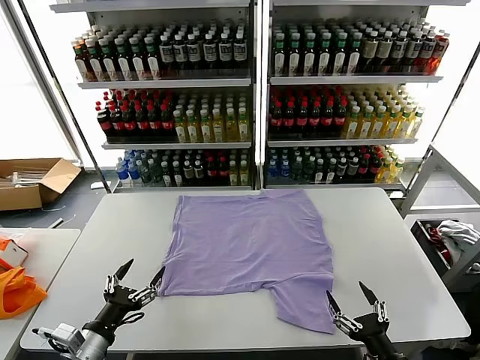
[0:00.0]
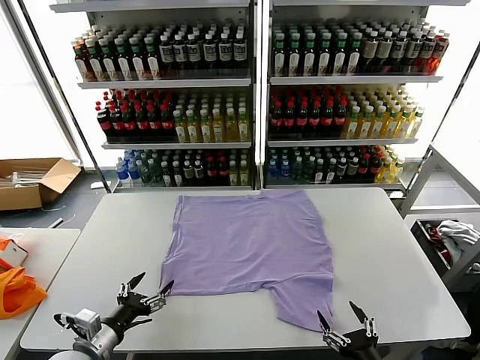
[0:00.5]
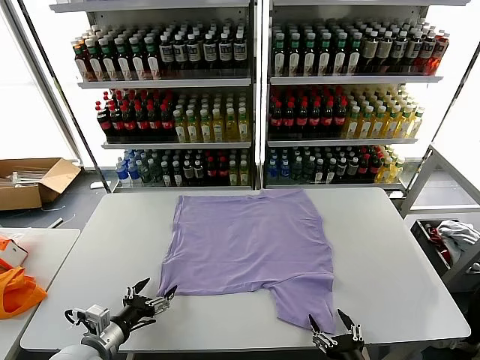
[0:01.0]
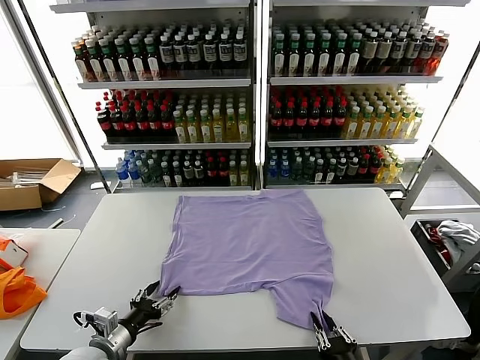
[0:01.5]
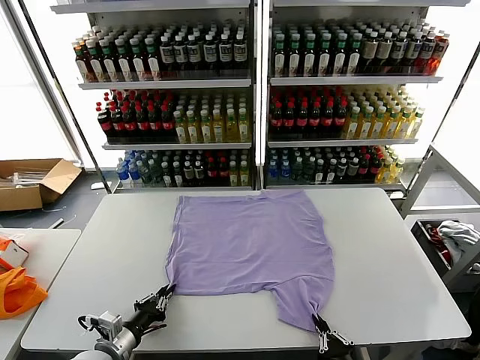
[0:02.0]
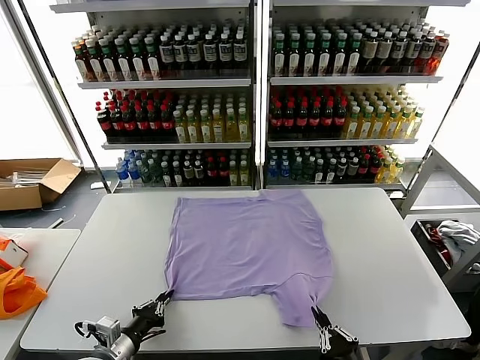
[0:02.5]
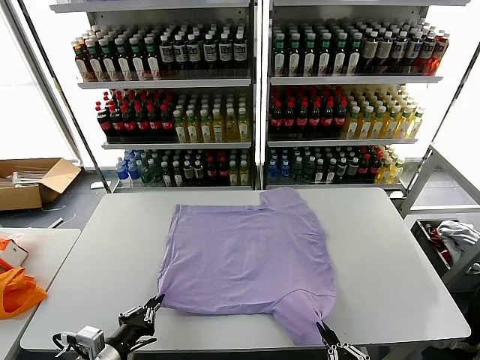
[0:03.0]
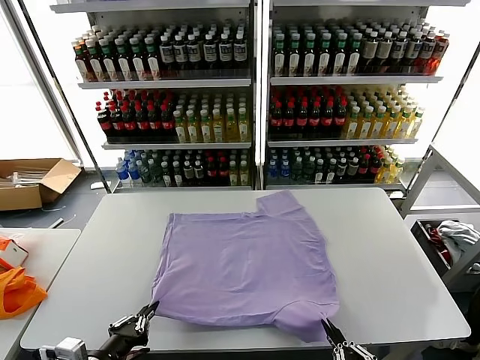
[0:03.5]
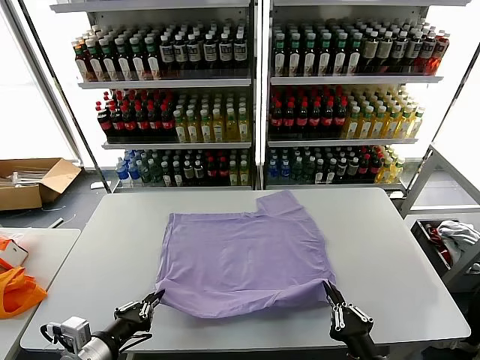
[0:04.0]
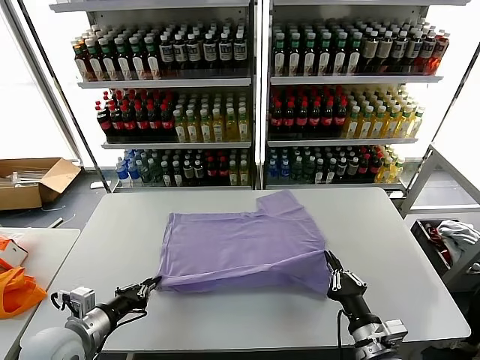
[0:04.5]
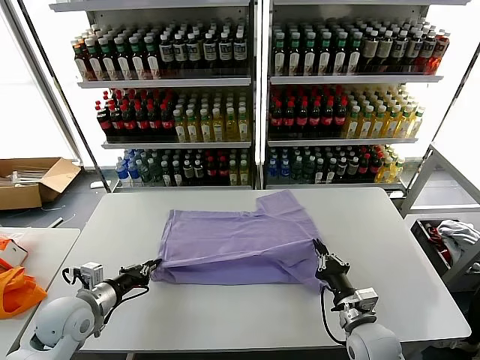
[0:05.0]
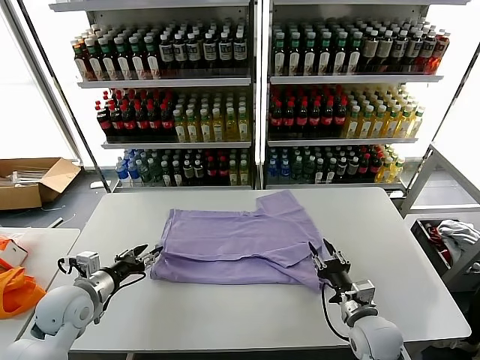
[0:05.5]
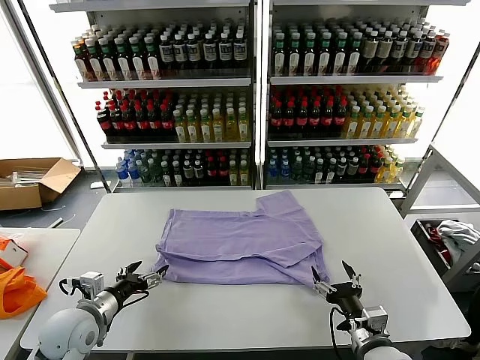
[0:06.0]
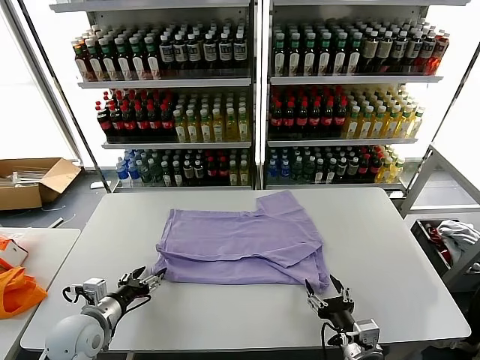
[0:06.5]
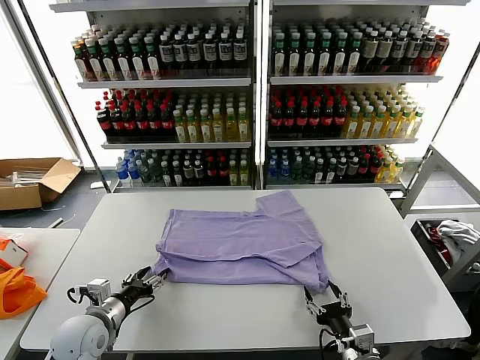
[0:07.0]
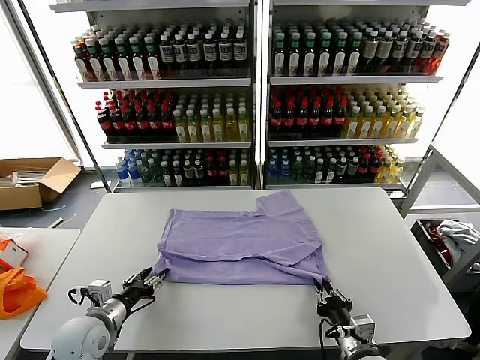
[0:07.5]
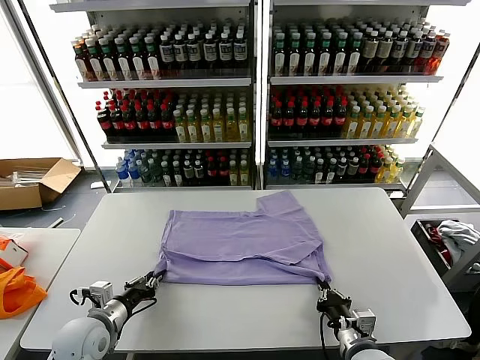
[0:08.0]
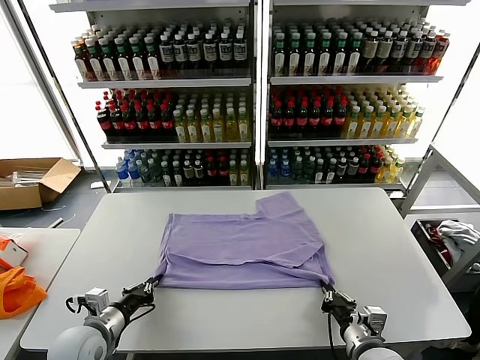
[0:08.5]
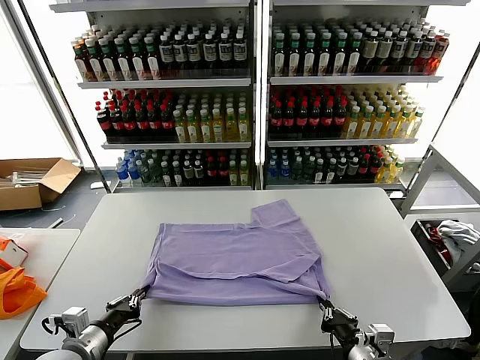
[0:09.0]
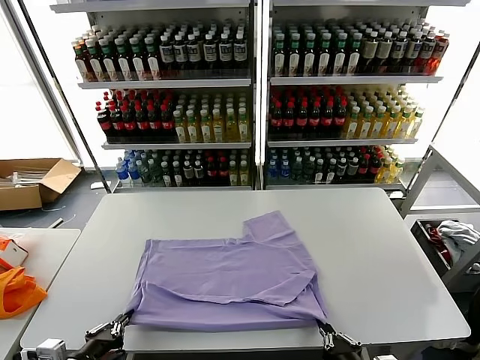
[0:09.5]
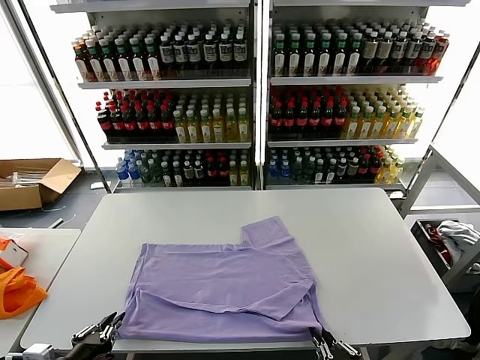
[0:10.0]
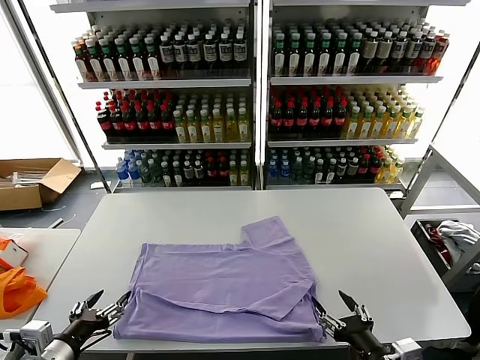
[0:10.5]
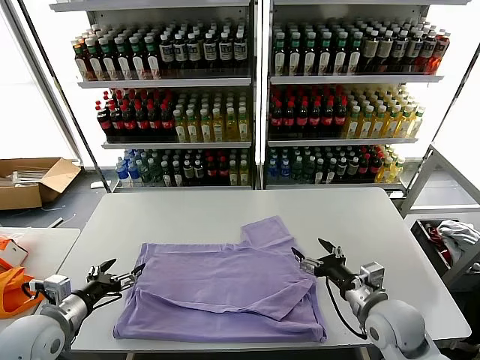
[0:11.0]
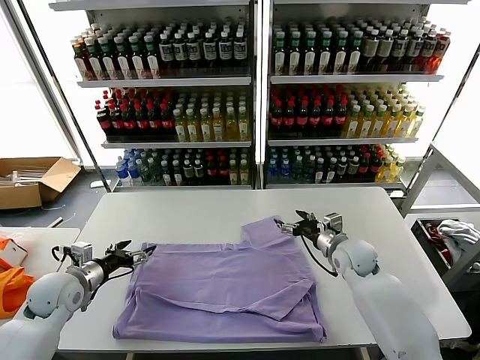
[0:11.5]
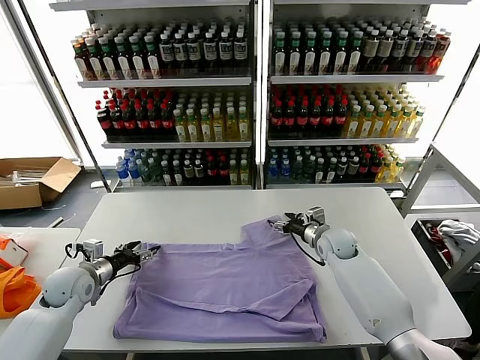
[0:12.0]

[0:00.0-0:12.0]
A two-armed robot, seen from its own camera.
Task of the whole recording: fold and organize the clothes.
Step, 0.0 to 2.0 s: use both grippers simultaneously to clamp the lower edge of the clothing fabric.
Step, 2.5 to 5.0 s: use both grippers to drag the lower edge of the fabric forward and fold it over the upper edge.
Step, 5.5 to 10.0 s: Drag the clothes downward with both gripper.
2.0 to 4.0 s: The right gripper goes about 5 cm upward, and goes backward and returns, approximately 5 cm each way; the left gripper moves upward, about 10 cm.
4.0 to 6.0 s: The two grippers go about 10 cm forward. The right gripper opens, while the left gripper opens its fingers.
6.0 to 8.0 s: The right gripper closes up. The left gripper closes its fingers.
8.0 to 10.0 s: The right gripper shifts roughly 15 cm backward and upward, while the left gripper shifts roughly 15 cm backward.
10.0 to 12.0 s: The left gripper goes some 25 cm forward, and opens up; the right gripper shifts about 40 cm forward, and opens up.

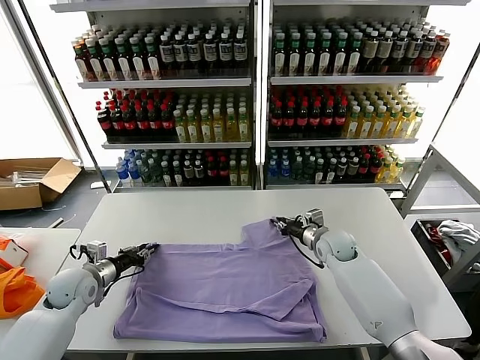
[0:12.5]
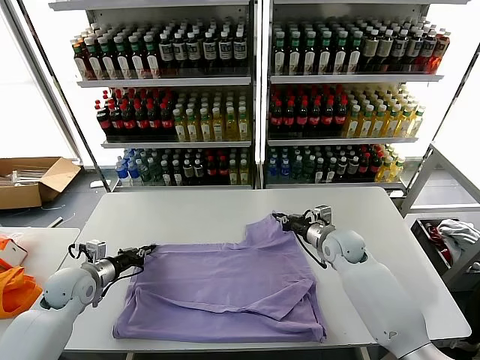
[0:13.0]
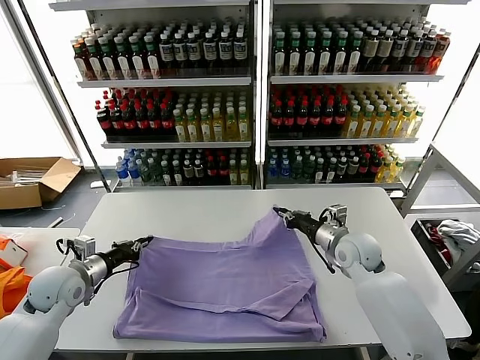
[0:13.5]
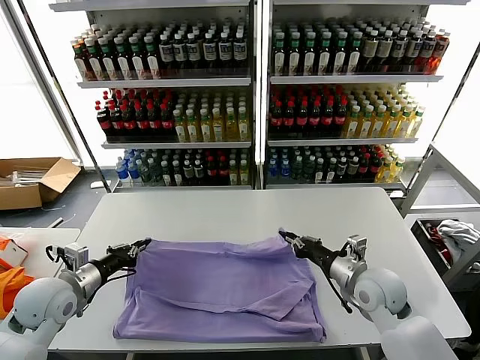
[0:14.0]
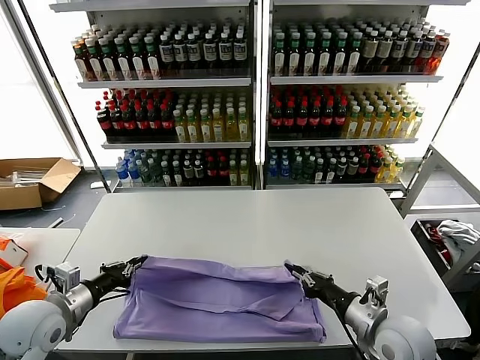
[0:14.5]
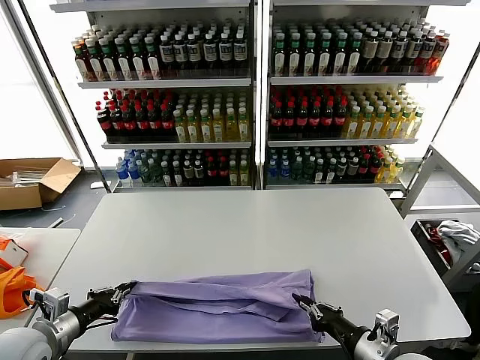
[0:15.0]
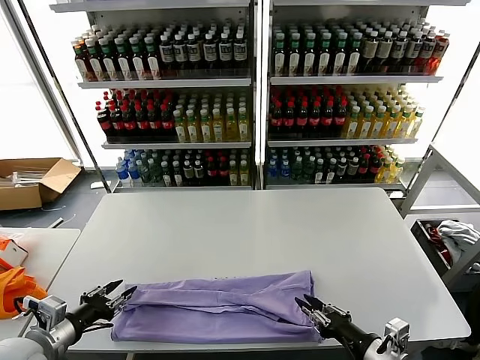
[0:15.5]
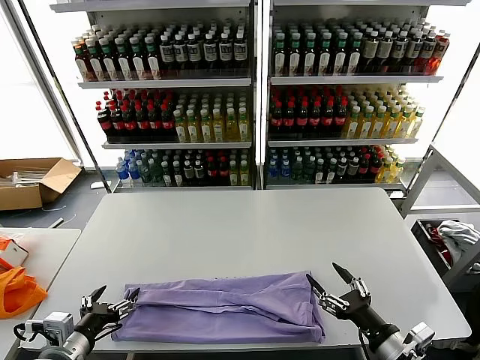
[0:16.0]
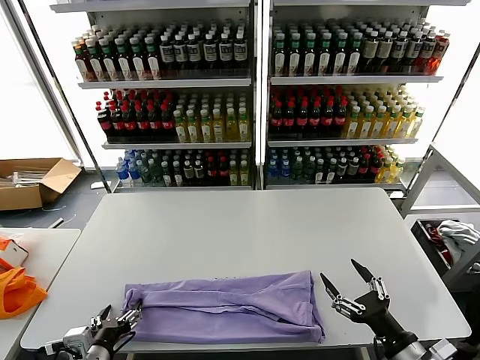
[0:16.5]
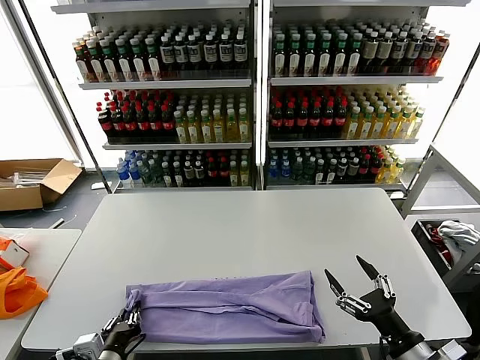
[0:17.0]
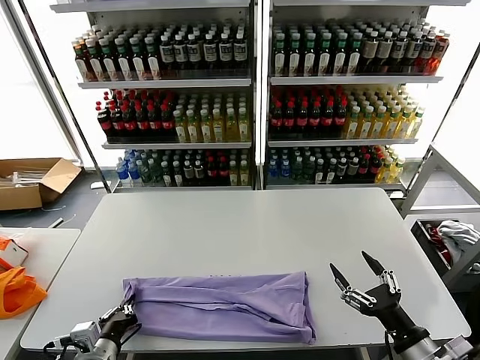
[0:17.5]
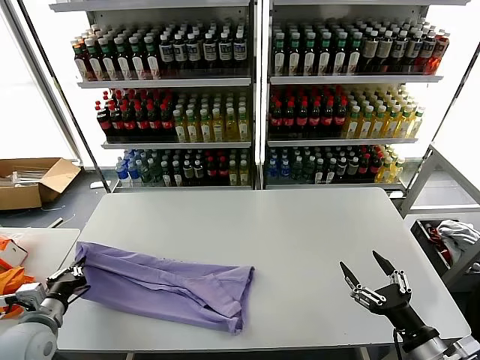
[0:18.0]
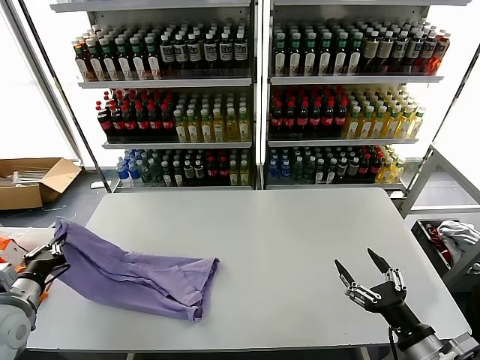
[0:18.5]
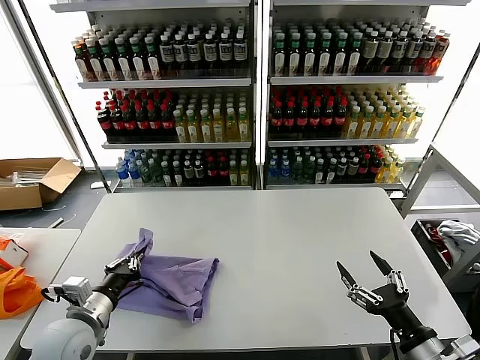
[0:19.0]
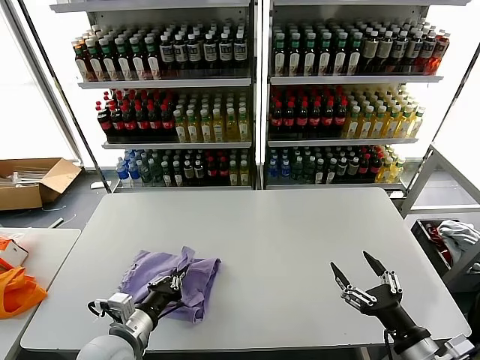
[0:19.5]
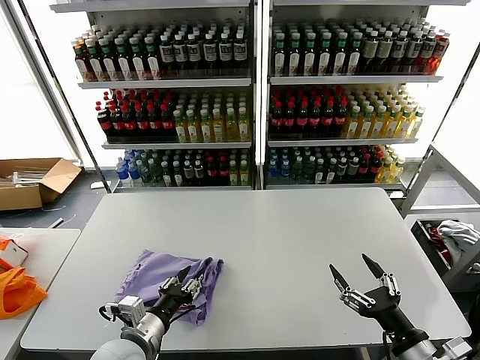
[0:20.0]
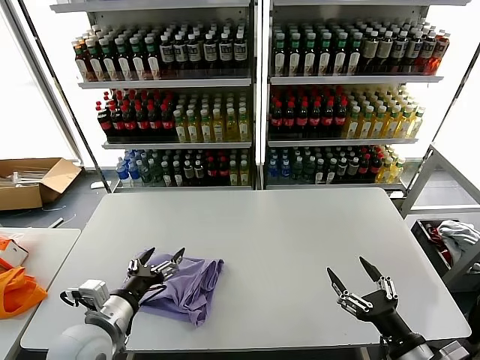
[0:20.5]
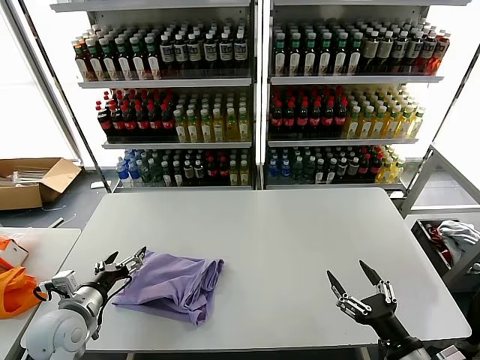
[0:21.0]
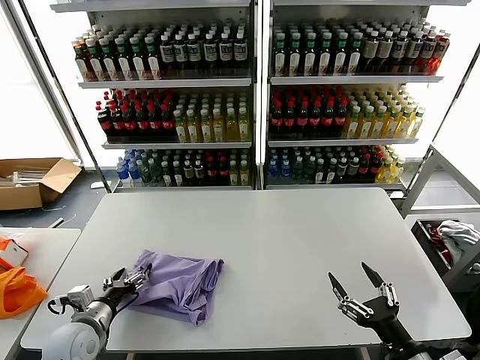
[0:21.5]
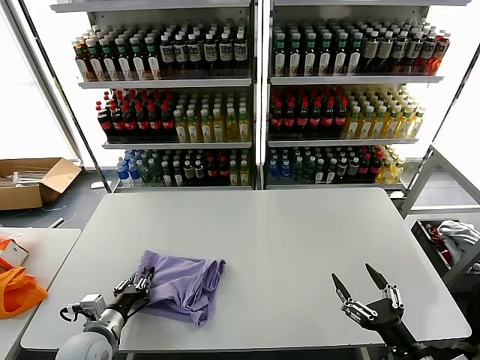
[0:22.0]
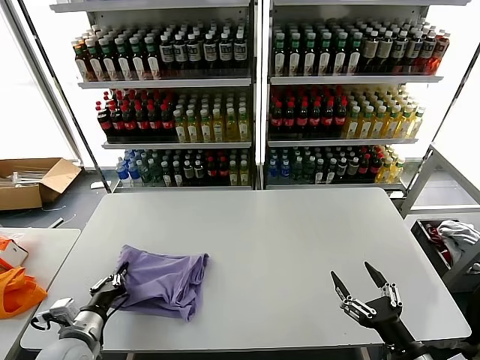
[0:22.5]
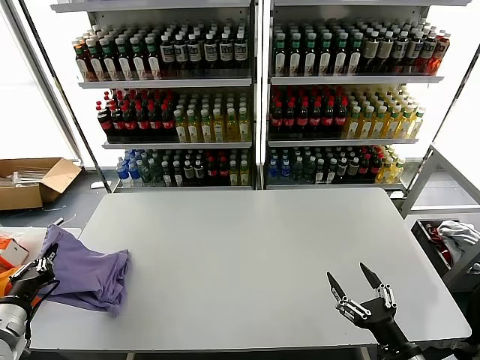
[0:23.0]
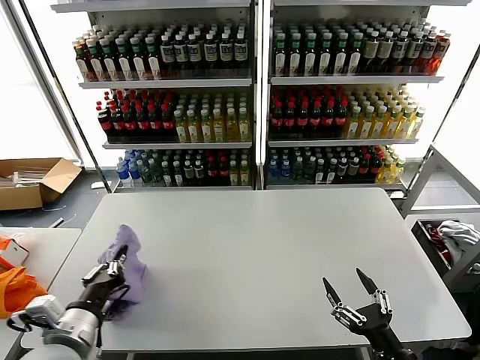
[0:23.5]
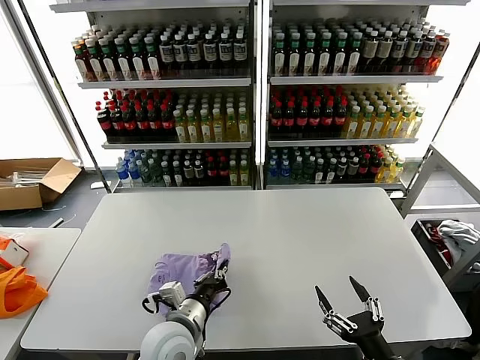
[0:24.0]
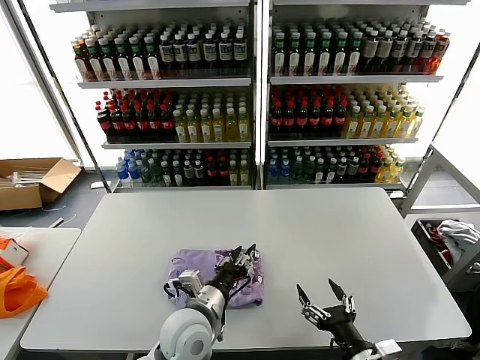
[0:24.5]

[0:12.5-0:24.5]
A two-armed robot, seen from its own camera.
Task of the whole recording: fold and organize the clothes.
Step, 13.0 to 15.0 s: use both grippers to drag the upper edge of the fabric backward and fold it over the lower edge.
Step, 16.0 to 17.0 s: use the left gripper to clamp the left edge of the fabric.
Step, 17.5 to 20.0 s: use the left gripper to drag the left edge of the fabric to the left and folds it over the right edge.
Step, 20.5 to 24.0 s: Flip the folded clothes over with left gripper.
12.5 to 14.5 s: The left gripper goes about 15 cm backward and upward. The right gripper travels backward by some 25 cm.
14.5 to 16.5 s: The right gripper shifts about 10 cm backward, and opens up. Meanwhile the left gripper heads backward, to the right and downward, covering roughly 15 cm, and opens.
16.5 to 18.5 s: The left gripper heads to the left, forward and upward, covering approximately 20 cm, and closes up.
18.5 to 20.5 s: The left gripper heads to the right, covering roughly 20 cm, and opens.
20.5 to 22.5 s: The left gripper shifts about 10 cm downward and to the left, and closes up.
22.5 to 24.5 s: The left gripper goes roughly 25 cm to the right, and opens its fingers; the right gripper is displaced to the left by about 5 cm.

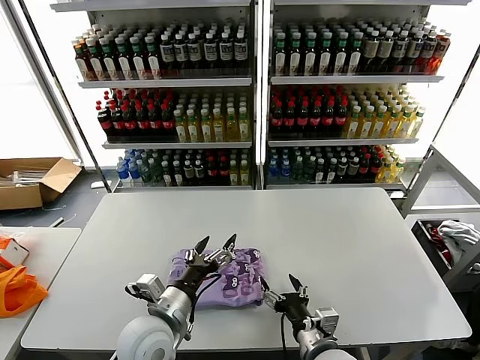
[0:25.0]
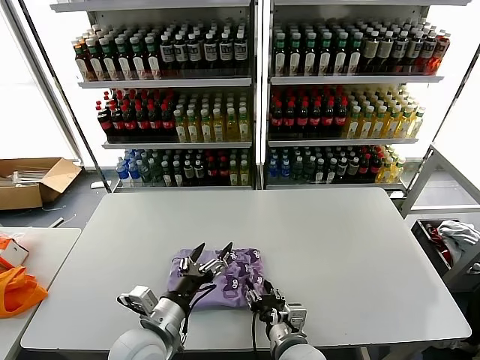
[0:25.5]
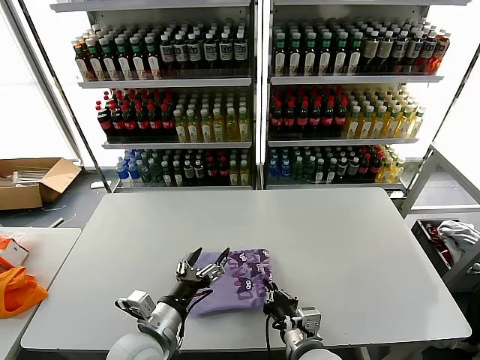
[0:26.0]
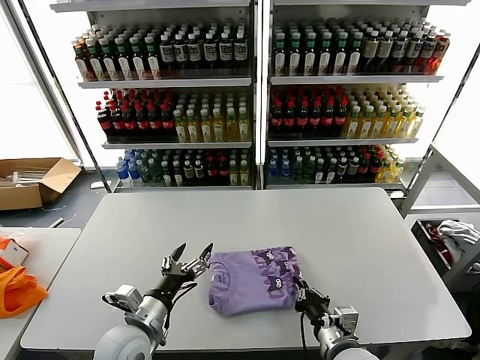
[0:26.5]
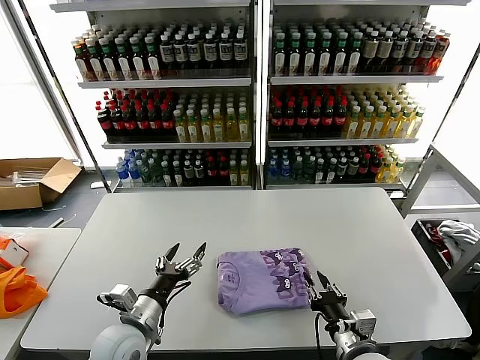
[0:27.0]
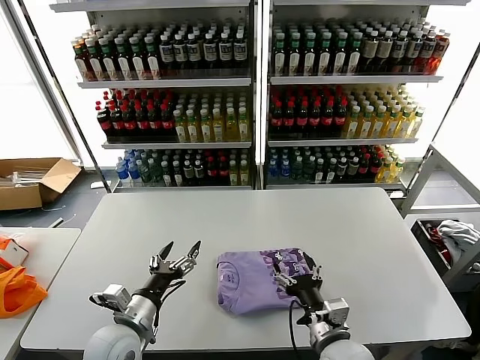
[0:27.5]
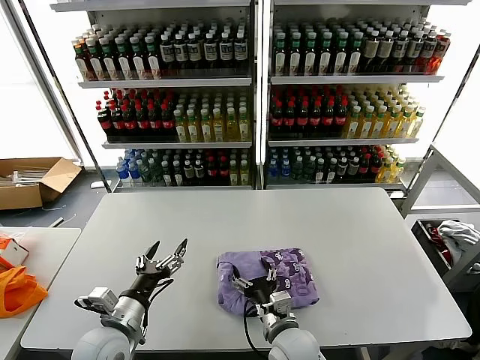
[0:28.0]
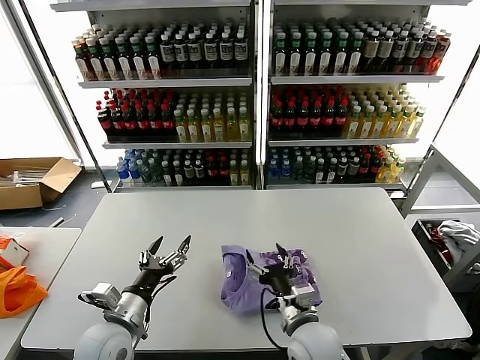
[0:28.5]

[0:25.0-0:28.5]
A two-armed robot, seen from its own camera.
Task of the whole recording: fold and organize the clothes.
Step, 25.0 to 28.0 s: Drag the clothes to the center of the table.
25.0 to 27.0 s: The left gripper moves to the left, about 5 cm. Meanwhile the right gripper is displaced to the right by approximately 5 cm, and closes.
27.0 to 28.5 s: The right gripper moves to the left and forward, approximately 10 cm, and opens.
